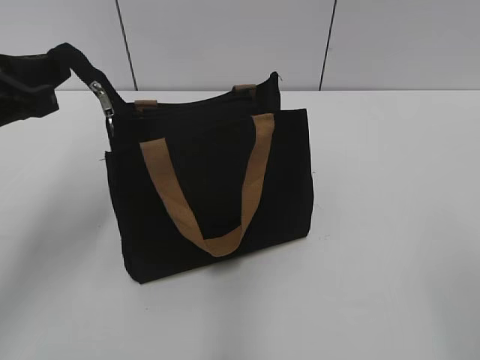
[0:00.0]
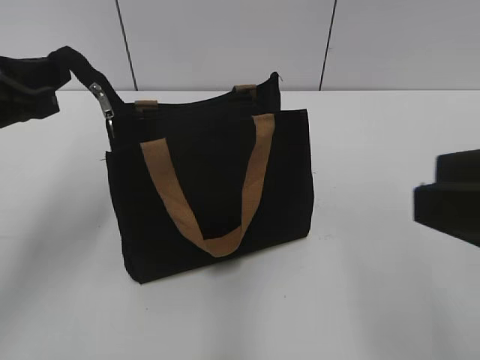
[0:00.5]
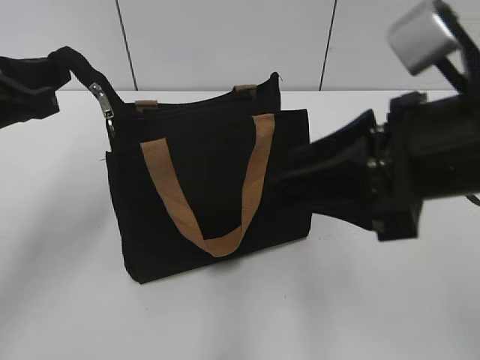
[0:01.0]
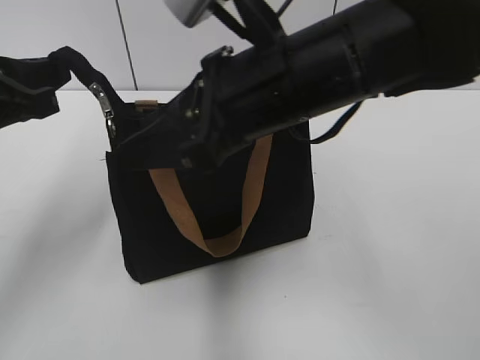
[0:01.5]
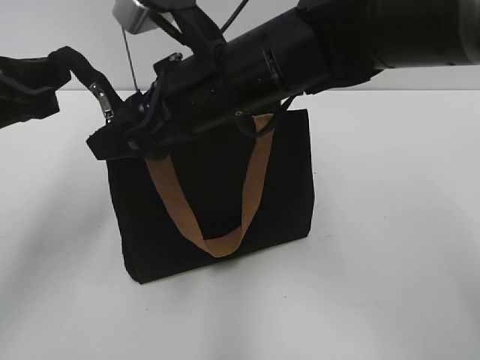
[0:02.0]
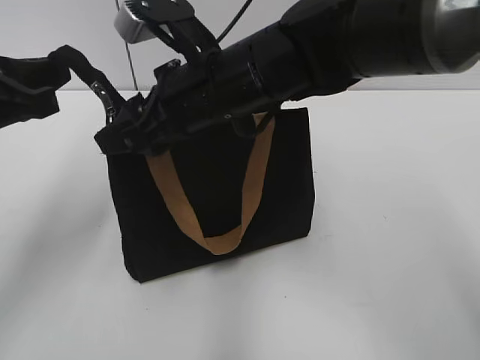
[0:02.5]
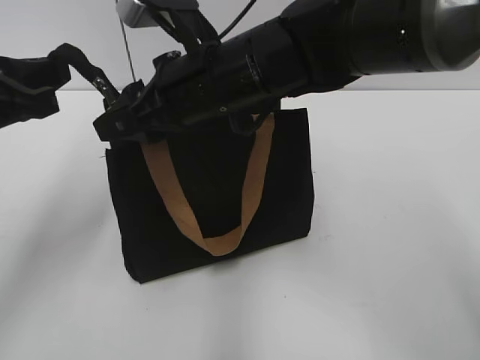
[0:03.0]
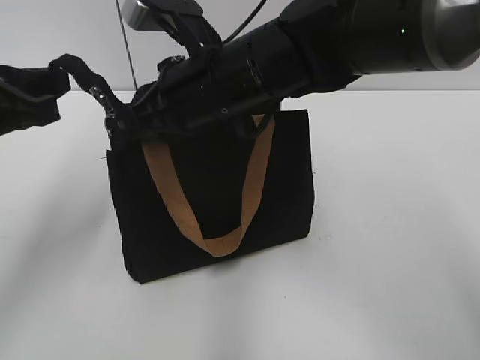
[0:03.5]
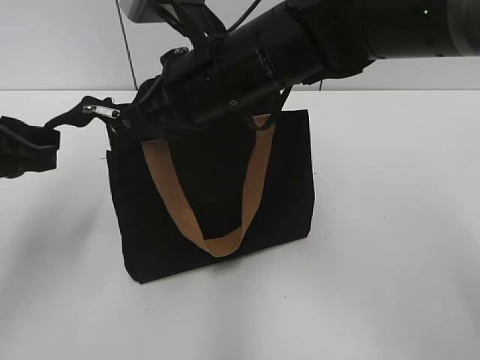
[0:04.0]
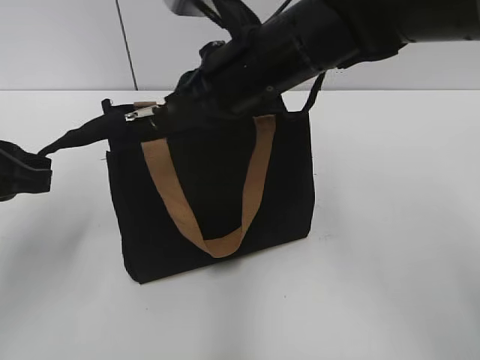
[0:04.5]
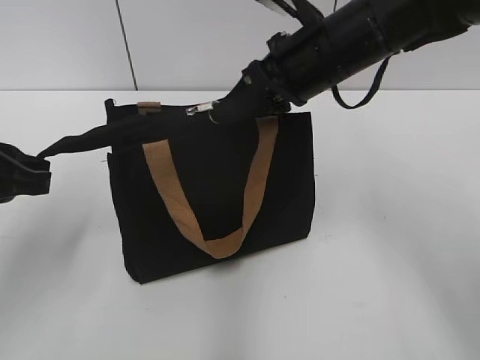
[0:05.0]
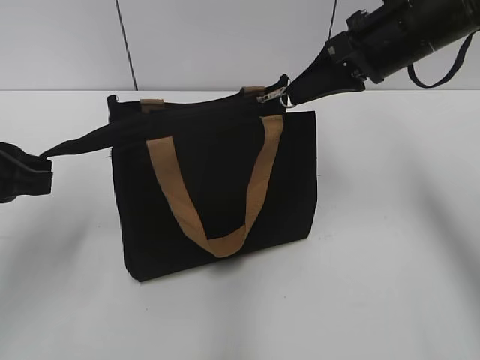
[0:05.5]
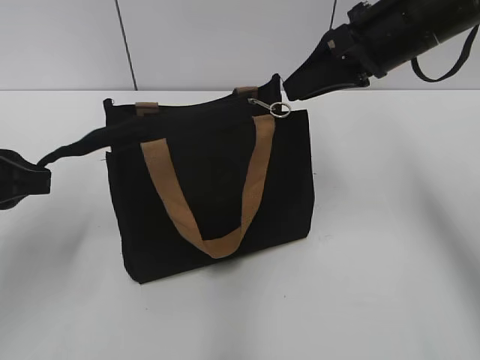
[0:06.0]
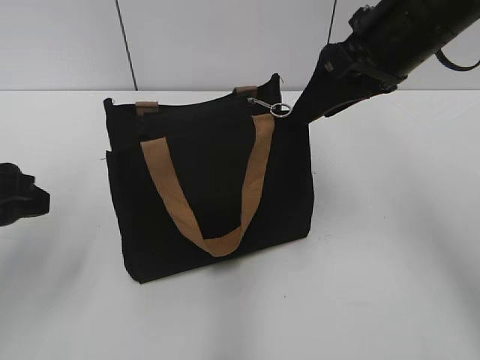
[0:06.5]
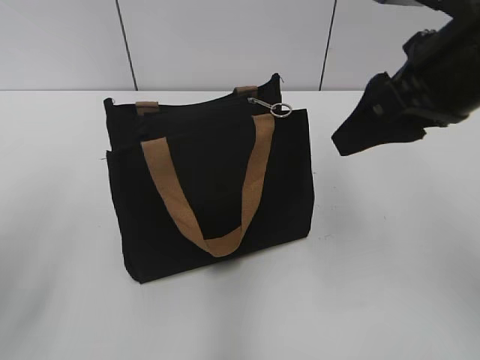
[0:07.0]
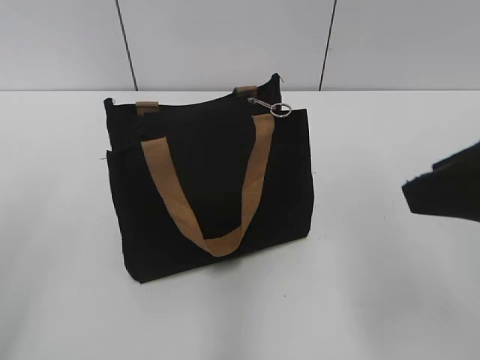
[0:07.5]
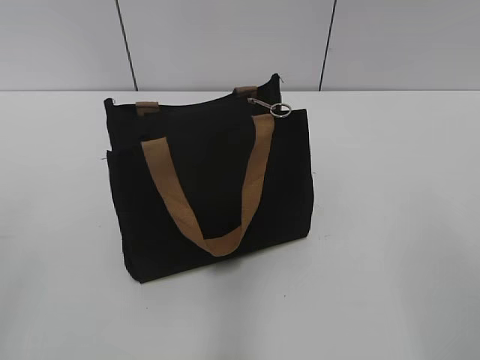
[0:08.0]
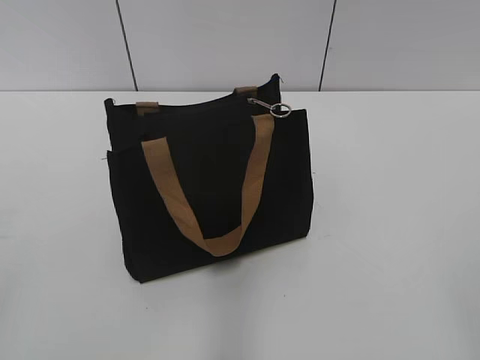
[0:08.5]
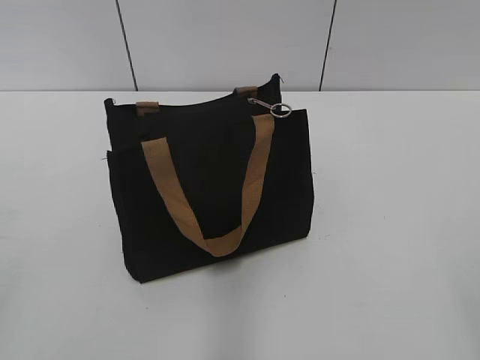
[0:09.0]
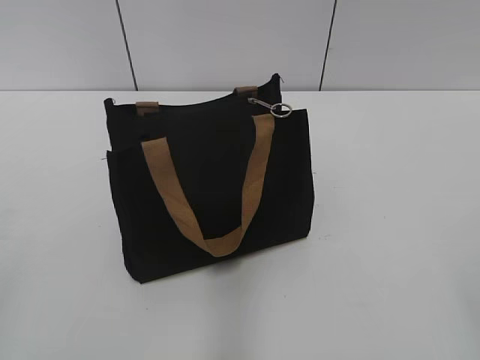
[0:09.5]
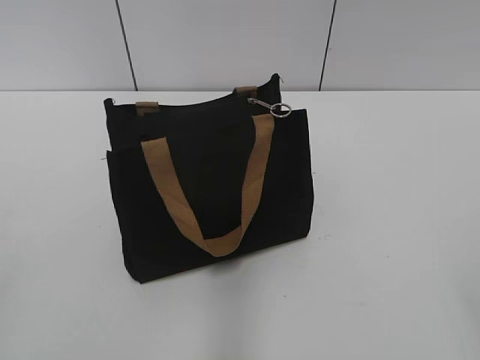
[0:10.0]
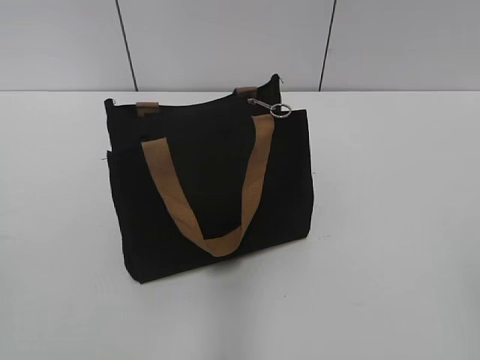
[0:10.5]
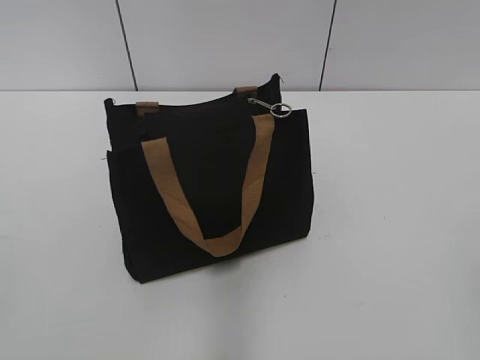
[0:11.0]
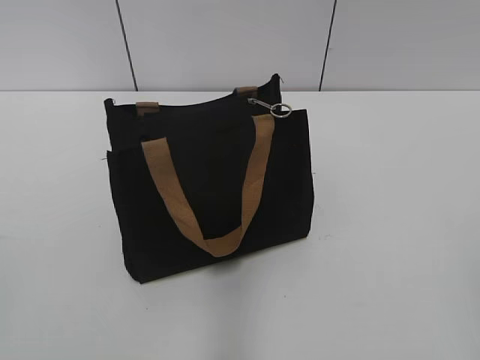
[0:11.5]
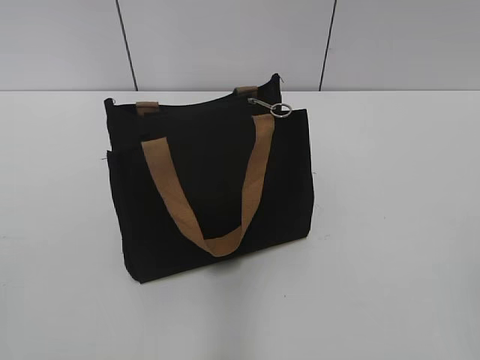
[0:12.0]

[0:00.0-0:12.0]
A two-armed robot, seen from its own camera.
Step, 0:00.0 to 0:05.5: Zip up the bag with your right hand.
0:00.0 to 0:02.0: The right gripper moves forward and to the left, roughly 40 cm.
0:02.0 to 0:04.0: The right gripper closes up.
0:04.0 to 0:06.0: The right gripper heads to the right, covering roughly 15 cm.
0:06.0 to 0:08.0: The left gripper travels backward and upward by approximately 20 cm, and opens up. Meanwhile the right gripper goes approximately 30 cm backward, and opens its fingers.
